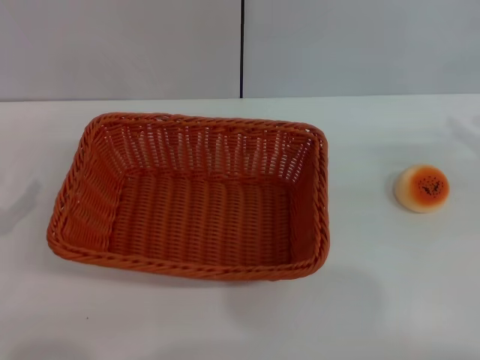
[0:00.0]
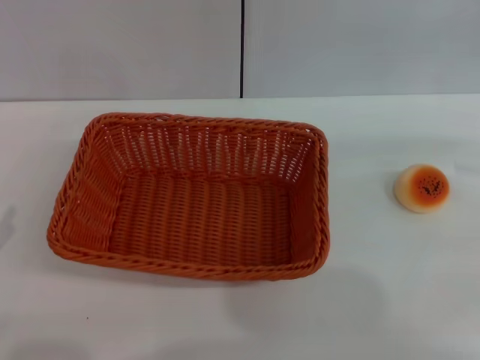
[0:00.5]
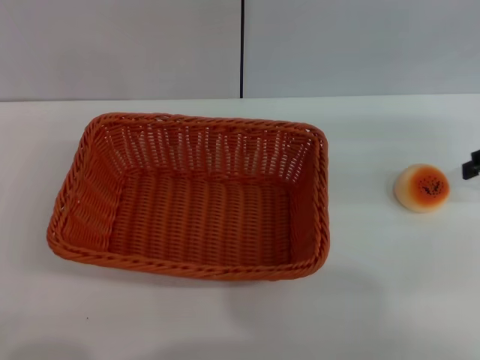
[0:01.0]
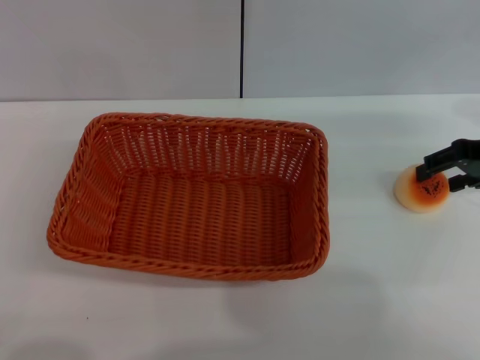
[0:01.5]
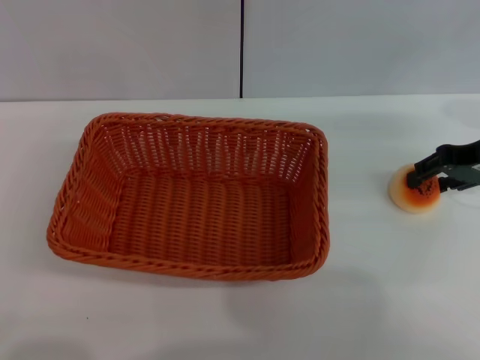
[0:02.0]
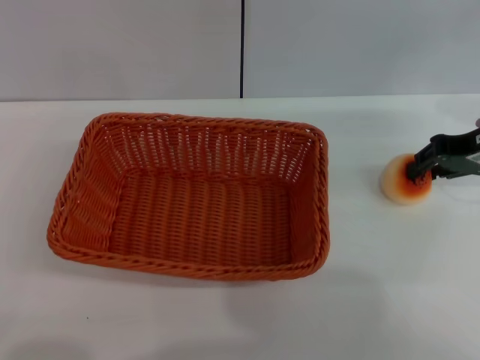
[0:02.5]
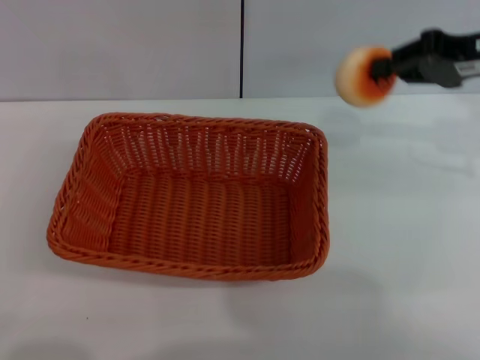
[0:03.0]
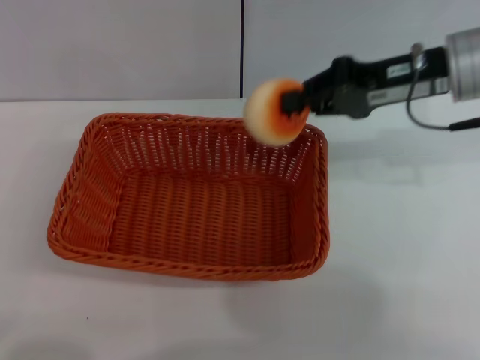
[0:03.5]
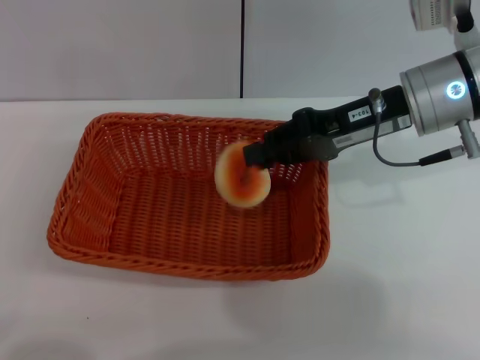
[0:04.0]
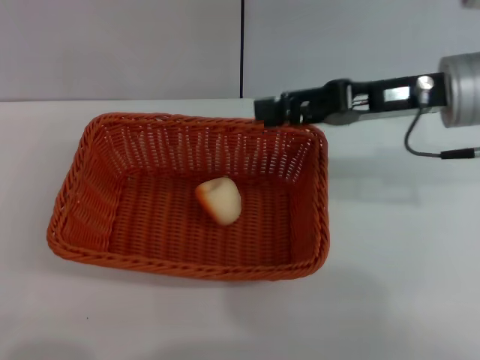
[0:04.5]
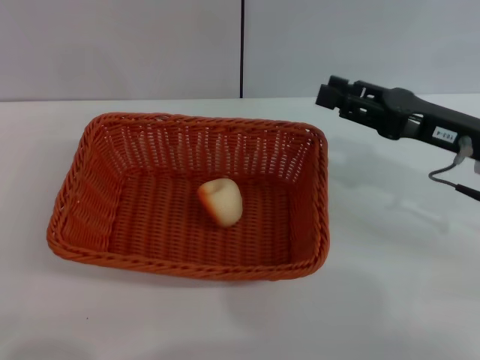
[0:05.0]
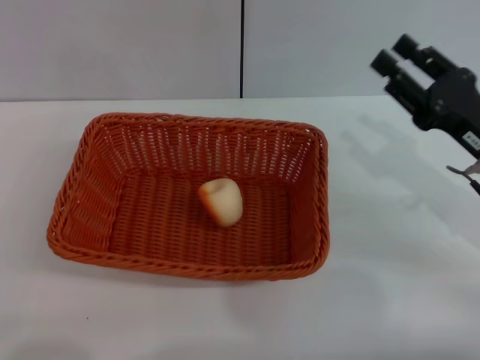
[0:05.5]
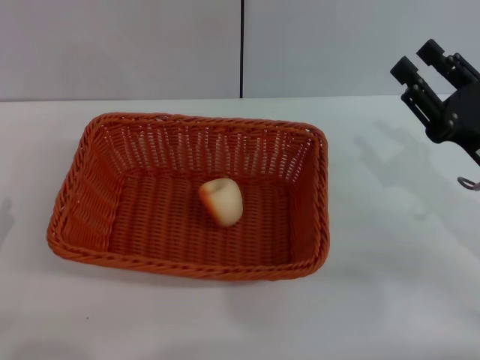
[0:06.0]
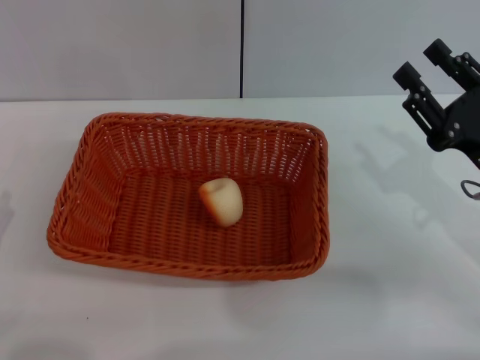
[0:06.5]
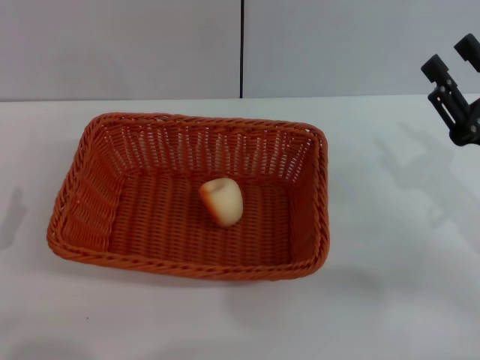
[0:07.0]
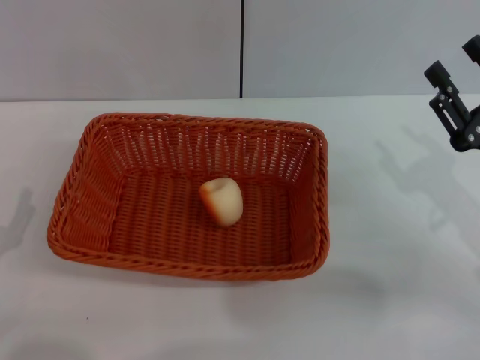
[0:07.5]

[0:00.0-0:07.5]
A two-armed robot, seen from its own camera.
Step, 0:00.0 to 0:02.5: Pick up the egg yolk pastry with the right gripper.
Step, 0:03.0 to 0:04.5: Place the egg yolk pastry into the basket with the right gripper.
0:00.0 to 0:02.0: The right gripper travels to the left and forward by about 10 cm.
0:02.0 to 0:04.0: The right gripper shifts about 10 cm to the left, and closes up.
0:04.0 to 0:05.5: The right gripper shifts some 15 cm to the right, downward and backward, and opens its fingers.
